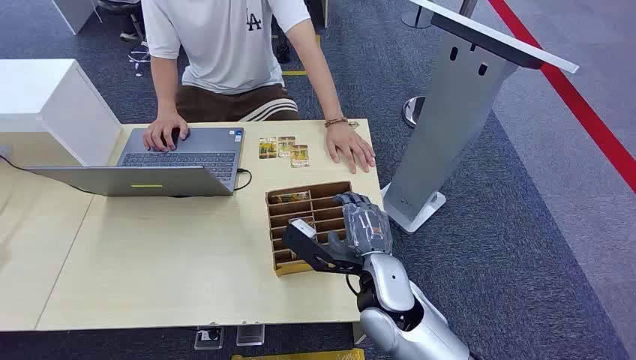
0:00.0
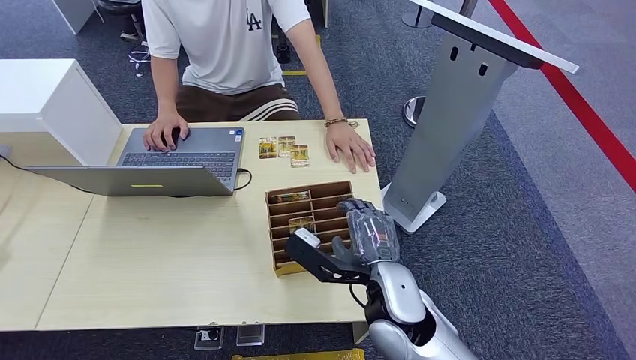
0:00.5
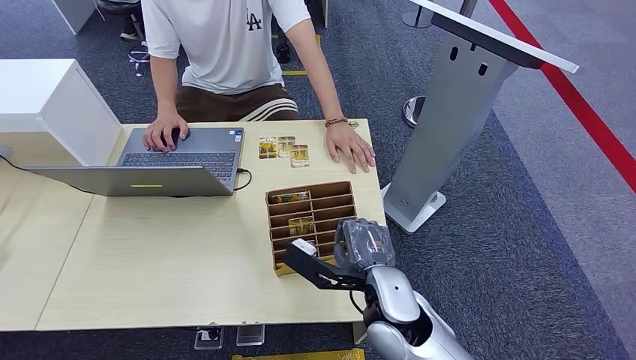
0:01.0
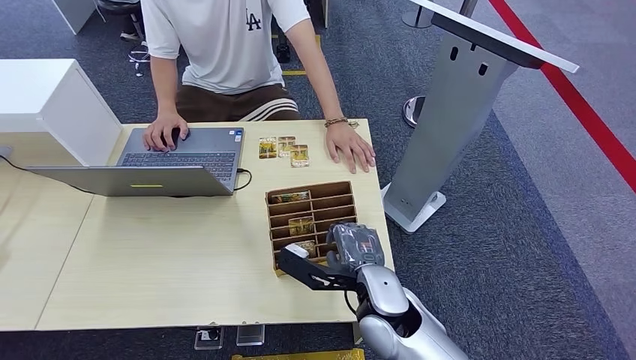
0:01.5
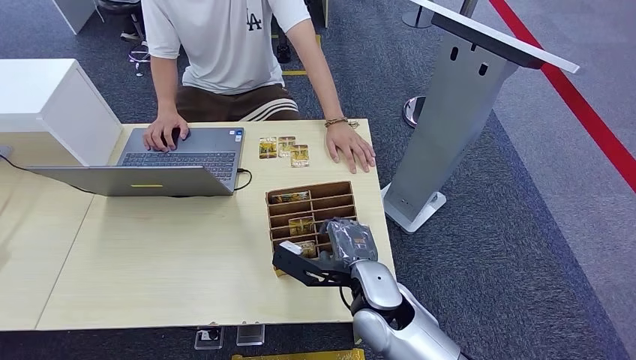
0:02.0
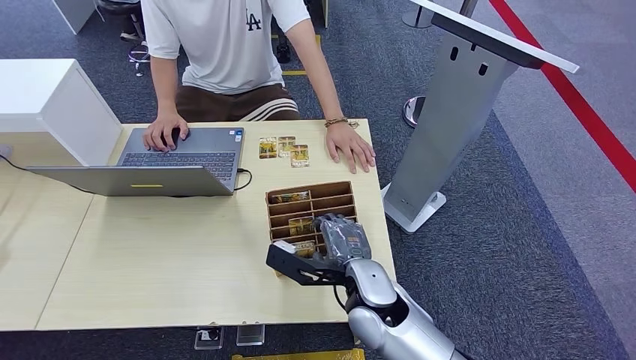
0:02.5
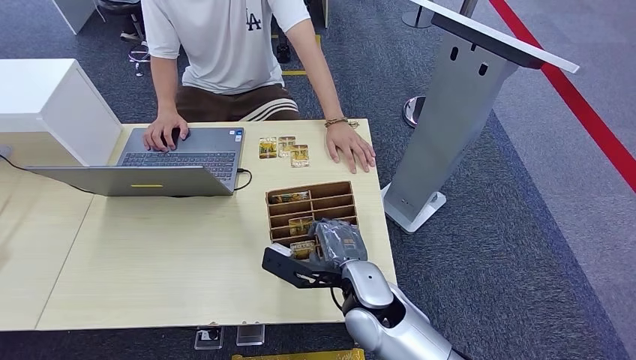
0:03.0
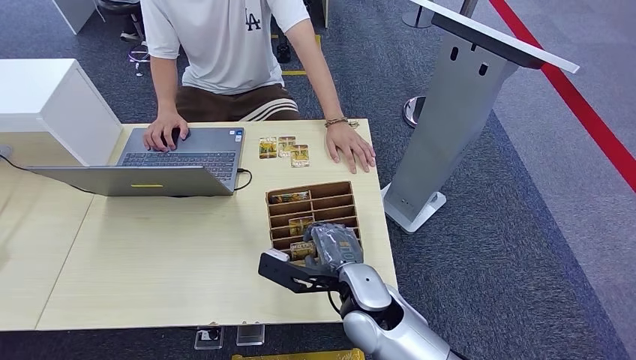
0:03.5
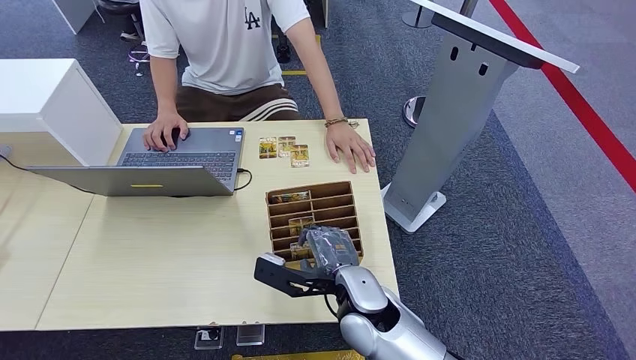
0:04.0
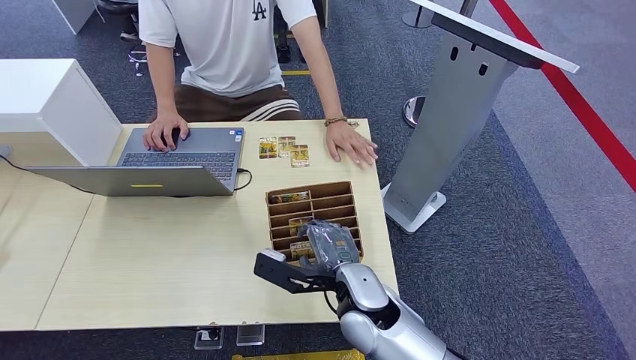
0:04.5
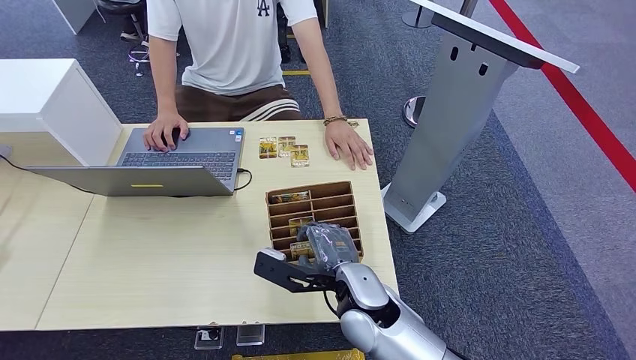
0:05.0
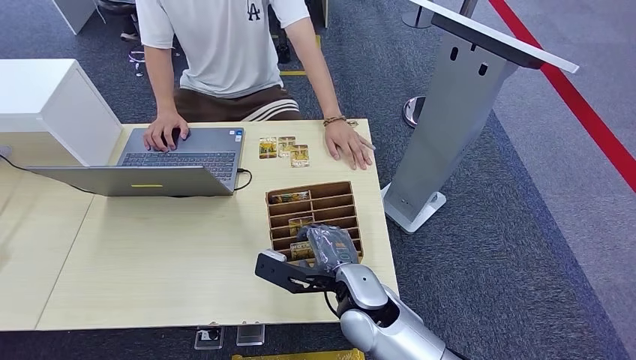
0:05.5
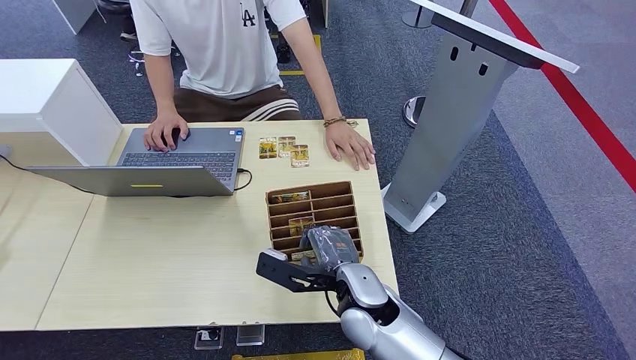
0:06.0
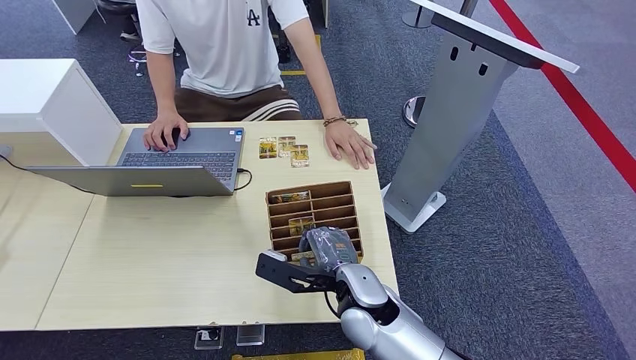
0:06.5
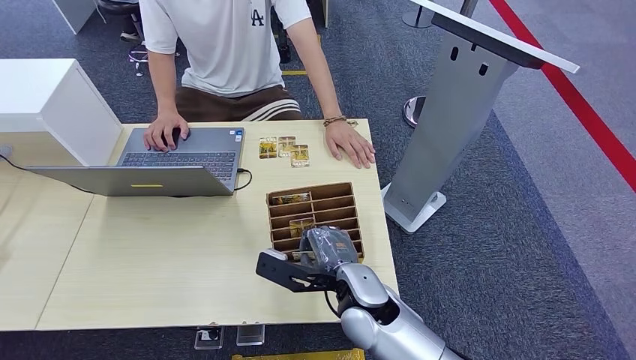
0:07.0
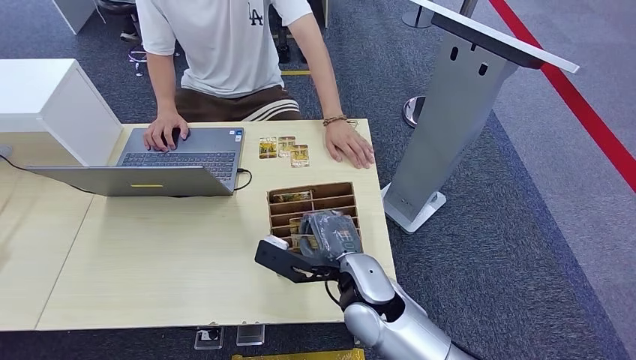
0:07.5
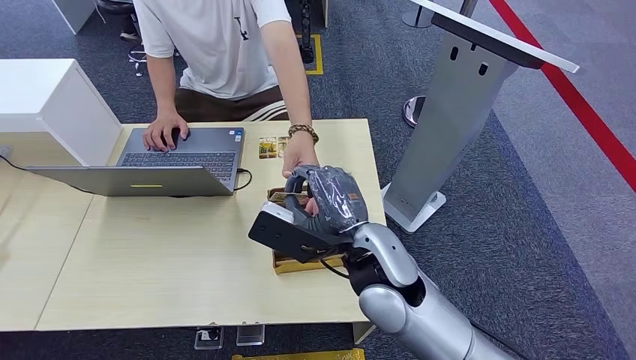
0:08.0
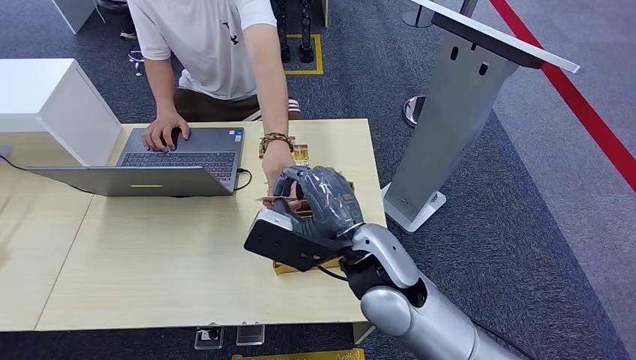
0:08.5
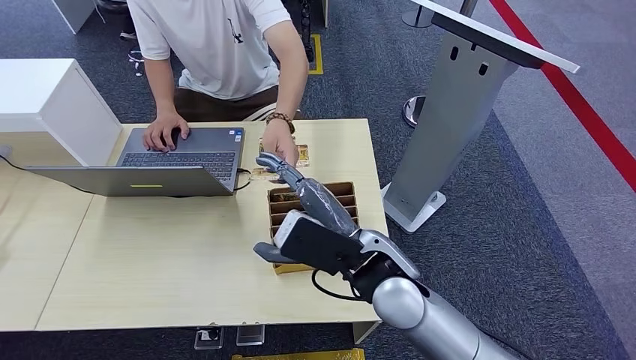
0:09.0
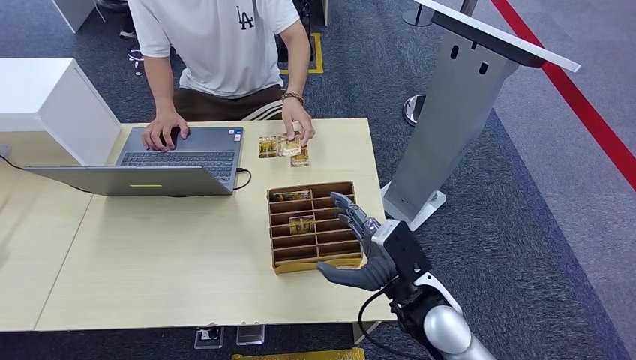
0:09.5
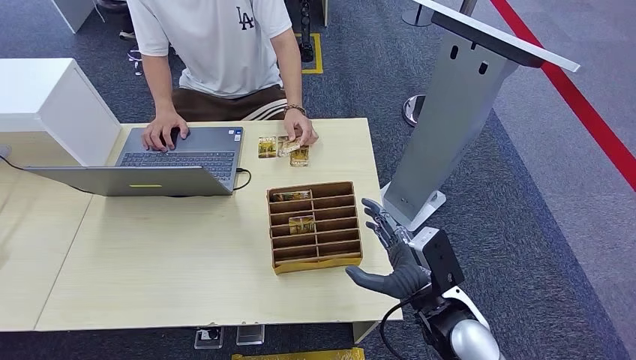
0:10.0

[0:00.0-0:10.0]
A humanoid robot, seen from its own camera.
Step, 0:00.0 to 0:07.5: Pick up the room card from the card holder.
Step, 0:08.0 to 0:10.0: Hand the room card to the target.
0:02.0 to 0:04.0: The hands stay close to where they were, moving slightly.
0:04.0 to 0:06.0: The two hands keep their place.
0:06.0 to 0:08.0: The right hand heads upward, covering some 10 cm.
0:08.0 to 0:10.0: The right hand shifts about 15 cm to the right, downward and backward.
